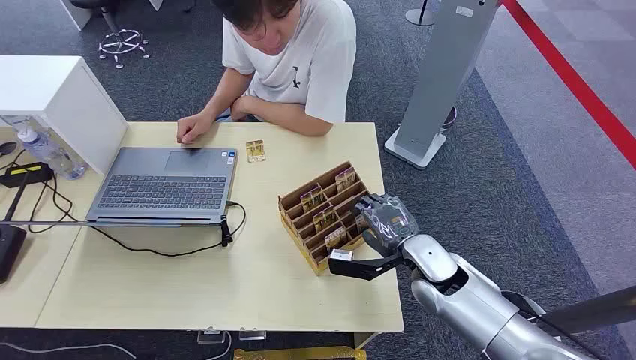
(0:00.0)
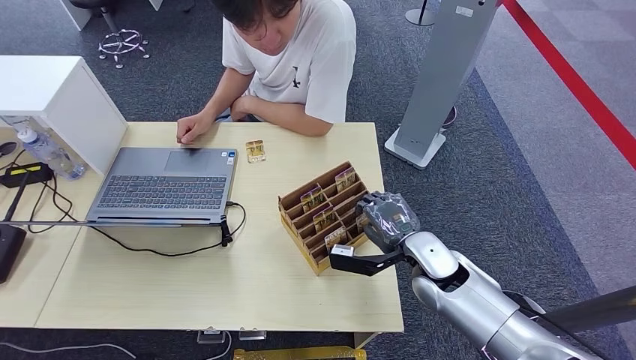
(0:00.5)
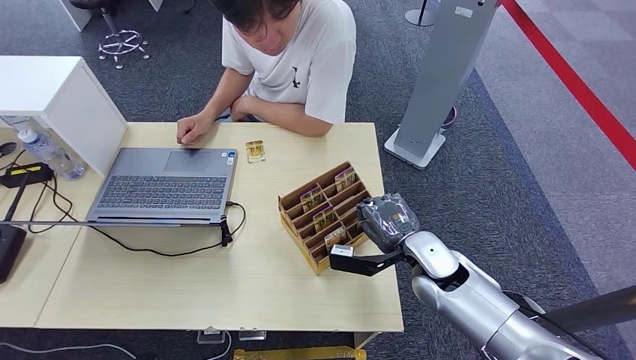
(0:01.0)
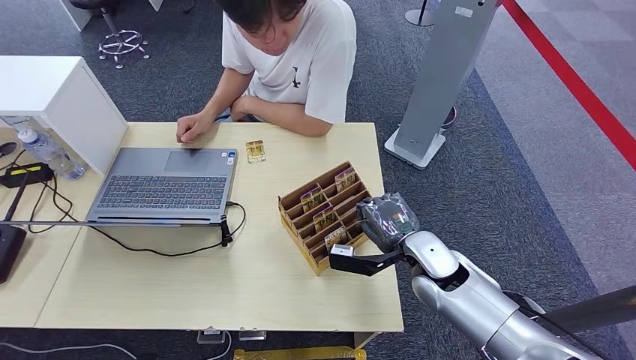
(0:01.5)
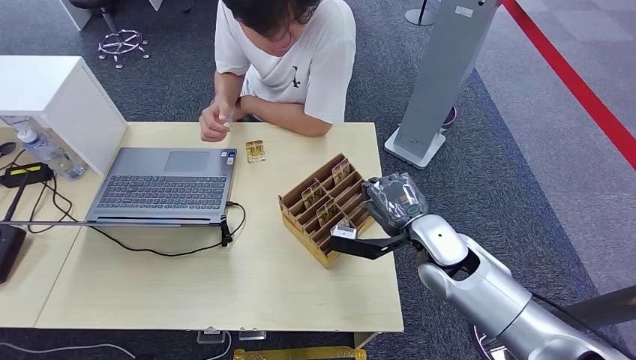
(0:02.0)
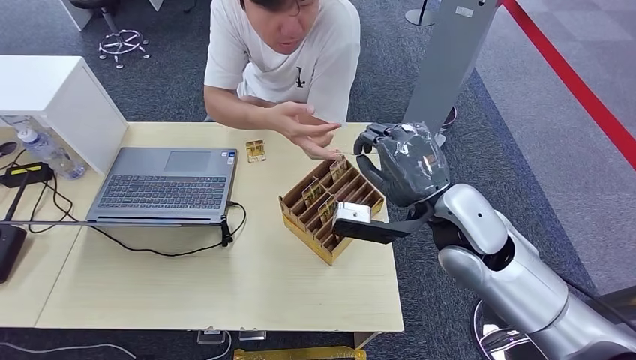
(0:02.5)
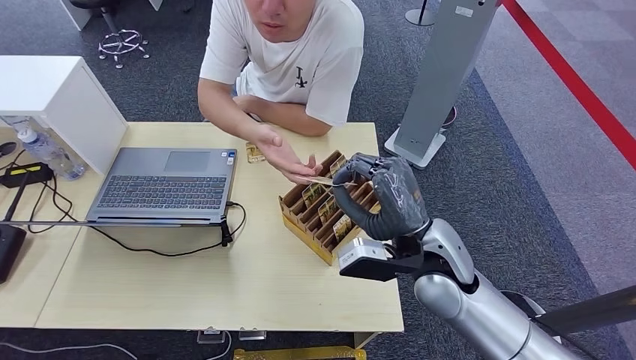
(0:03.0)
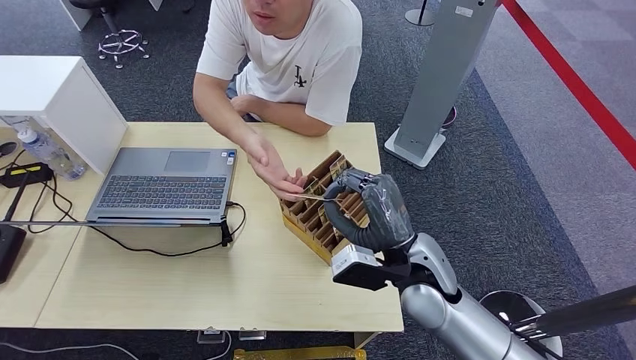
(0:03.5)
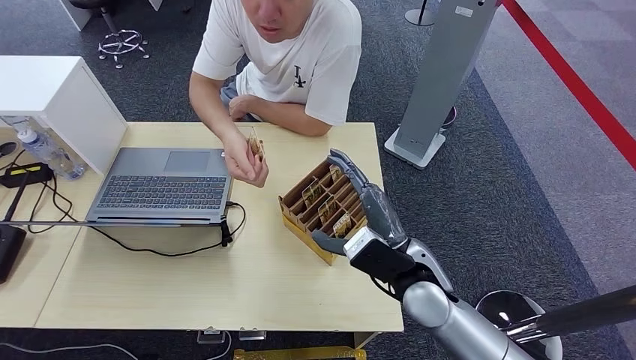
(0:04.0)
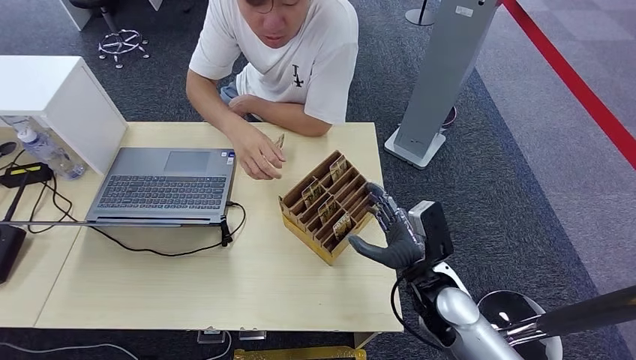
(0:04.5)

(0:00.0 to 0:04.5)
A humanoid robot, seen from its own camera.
Task of the whole recording: Pick up the card and hand it over to the target person.
Step, 0:00.0 - 0:02.5: Pick up the key card from the card box.
Step, 0:03.0 - 0:04.5: Hand the key card to the target.
0:02.0 - 0:04.5: The right hand is displaced downward by some 20 cm.
